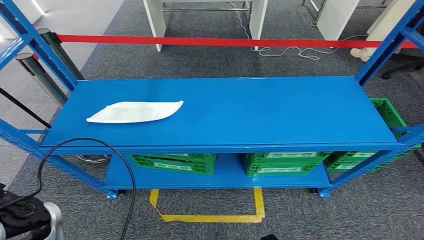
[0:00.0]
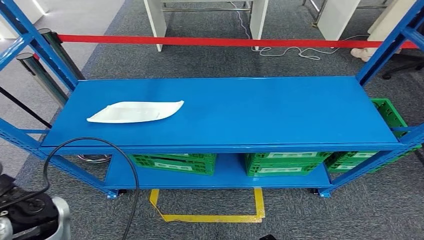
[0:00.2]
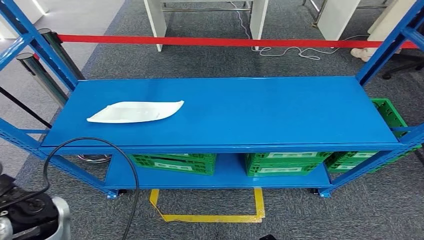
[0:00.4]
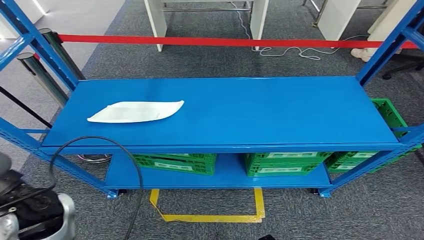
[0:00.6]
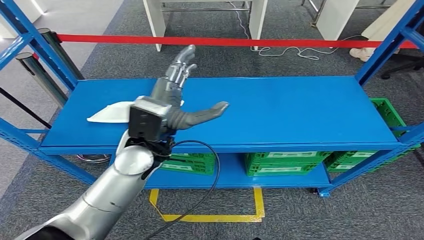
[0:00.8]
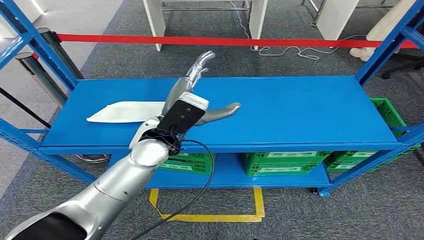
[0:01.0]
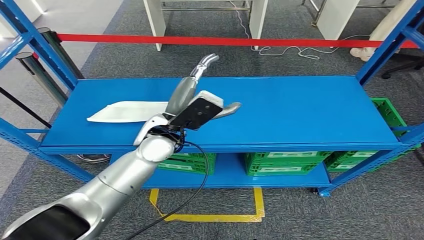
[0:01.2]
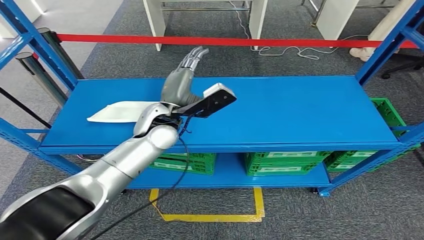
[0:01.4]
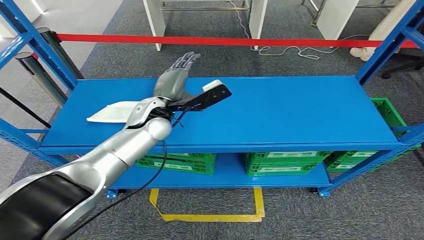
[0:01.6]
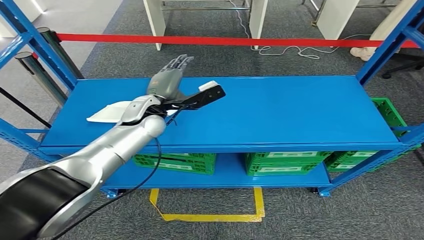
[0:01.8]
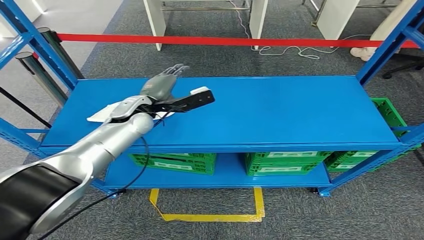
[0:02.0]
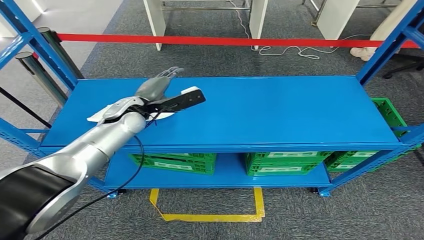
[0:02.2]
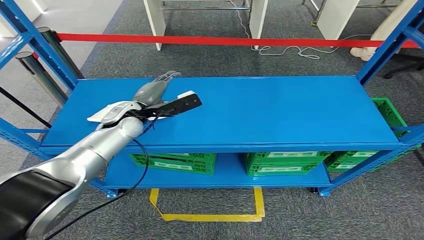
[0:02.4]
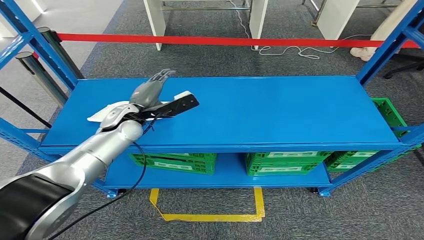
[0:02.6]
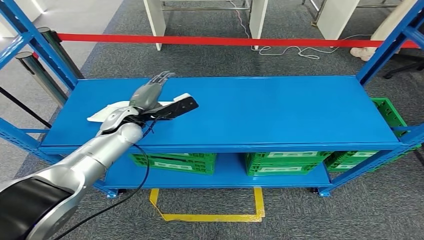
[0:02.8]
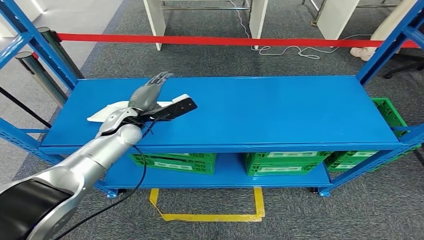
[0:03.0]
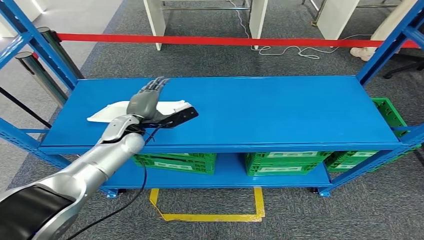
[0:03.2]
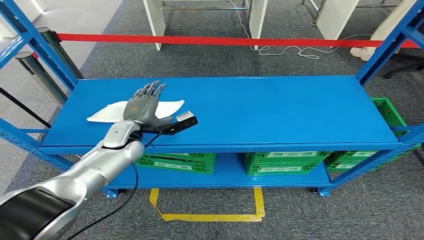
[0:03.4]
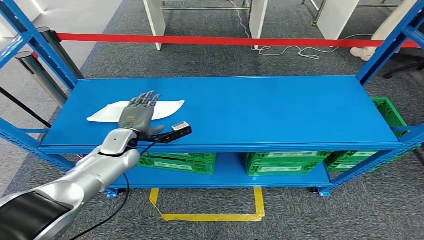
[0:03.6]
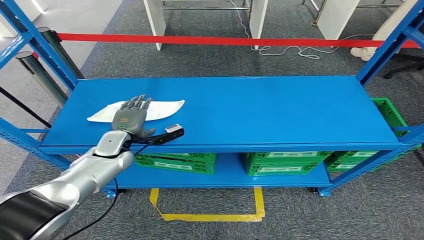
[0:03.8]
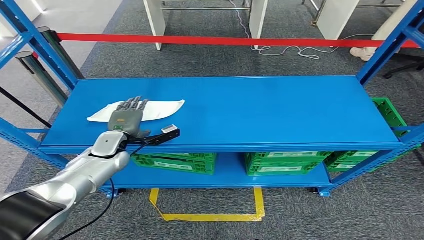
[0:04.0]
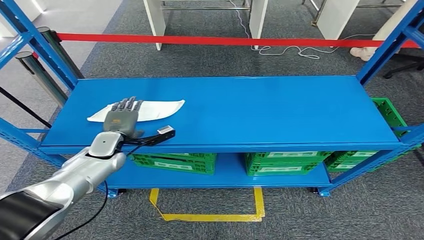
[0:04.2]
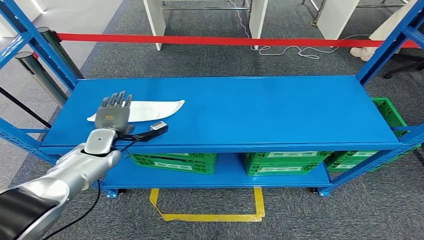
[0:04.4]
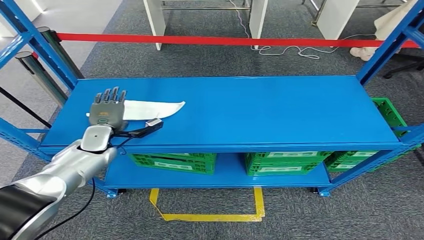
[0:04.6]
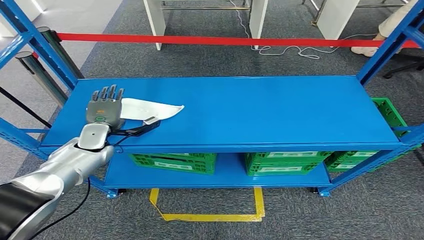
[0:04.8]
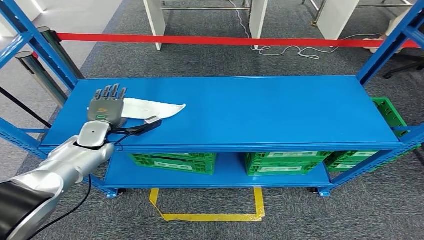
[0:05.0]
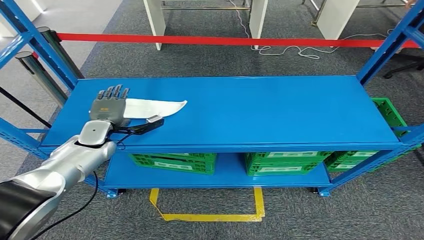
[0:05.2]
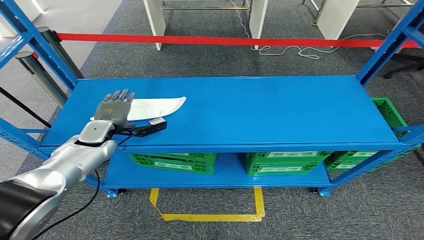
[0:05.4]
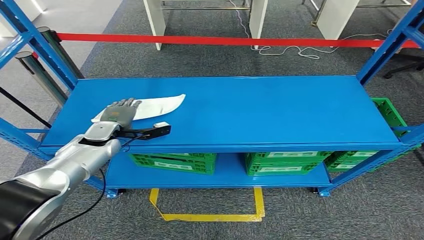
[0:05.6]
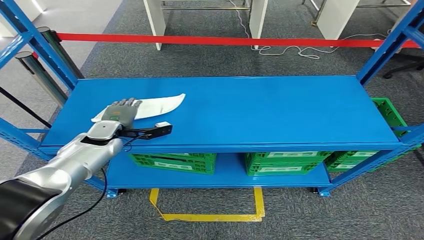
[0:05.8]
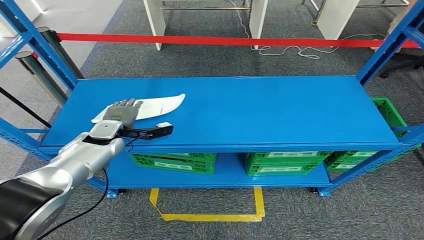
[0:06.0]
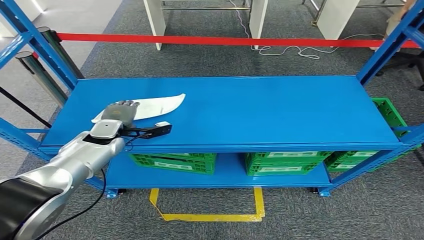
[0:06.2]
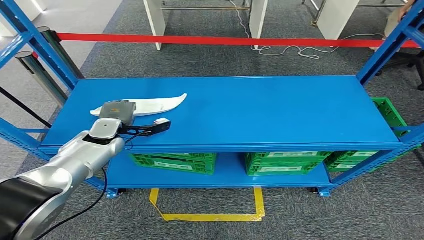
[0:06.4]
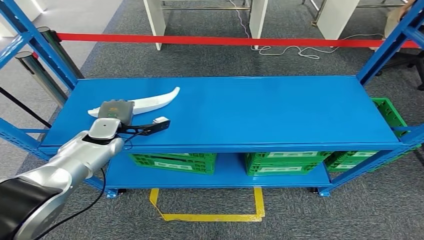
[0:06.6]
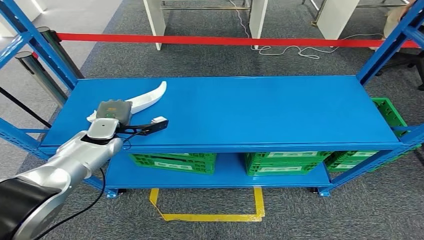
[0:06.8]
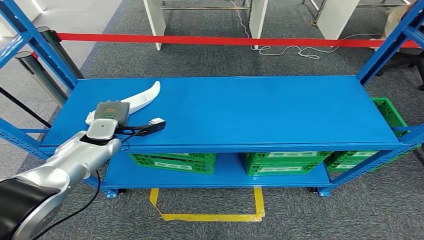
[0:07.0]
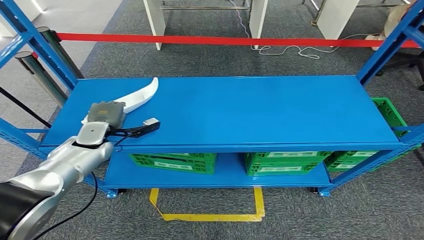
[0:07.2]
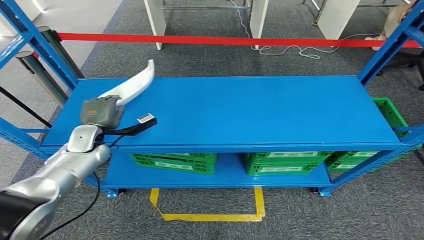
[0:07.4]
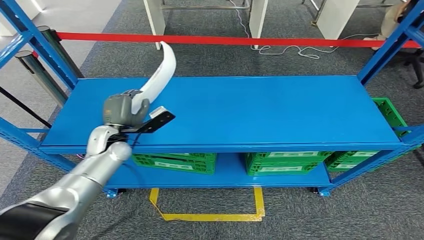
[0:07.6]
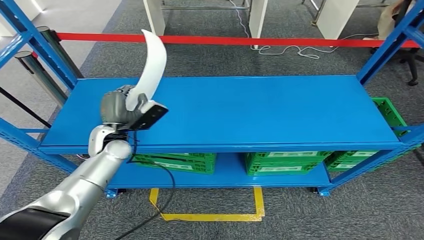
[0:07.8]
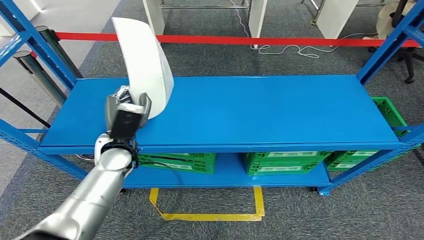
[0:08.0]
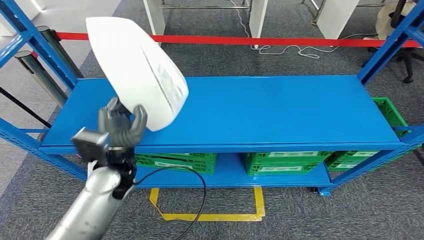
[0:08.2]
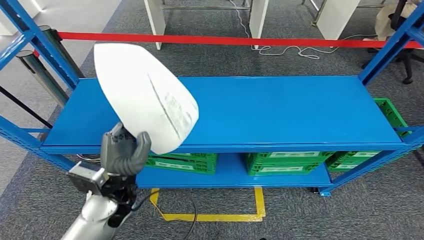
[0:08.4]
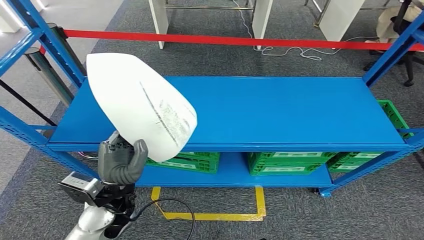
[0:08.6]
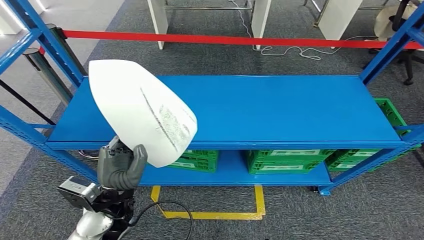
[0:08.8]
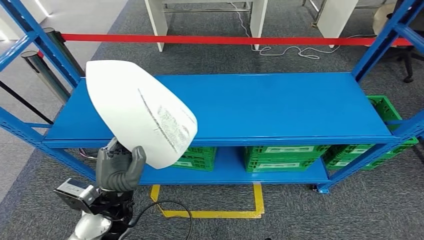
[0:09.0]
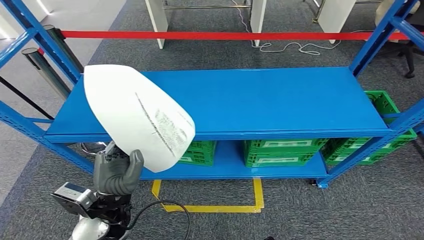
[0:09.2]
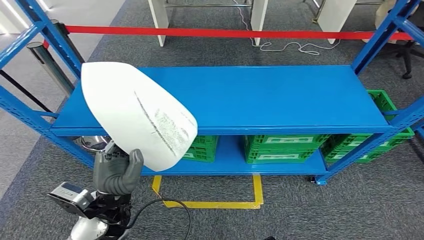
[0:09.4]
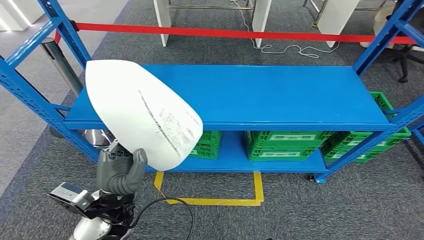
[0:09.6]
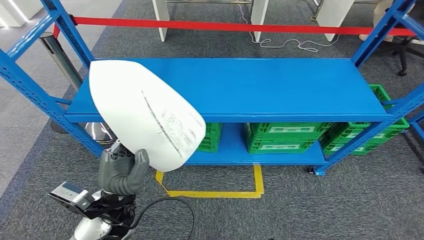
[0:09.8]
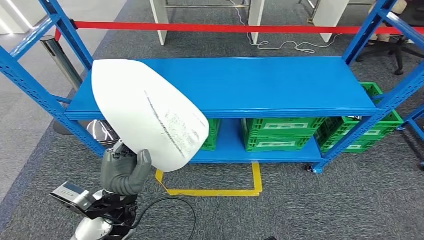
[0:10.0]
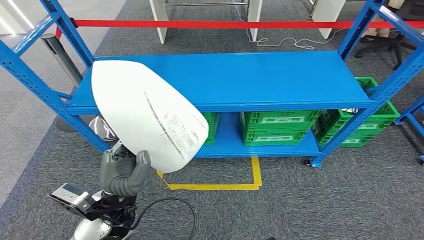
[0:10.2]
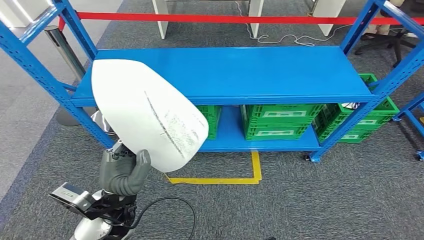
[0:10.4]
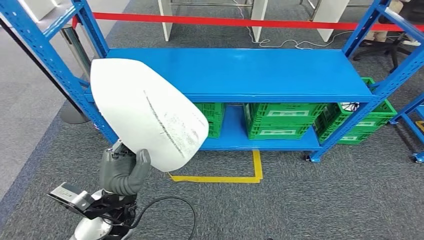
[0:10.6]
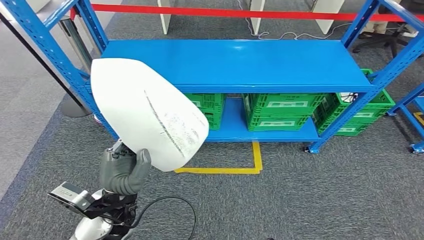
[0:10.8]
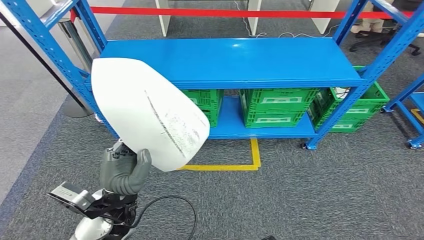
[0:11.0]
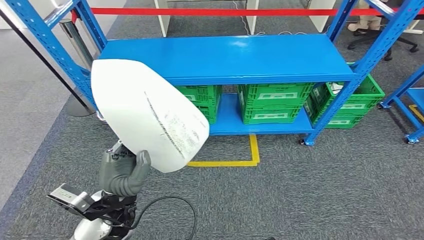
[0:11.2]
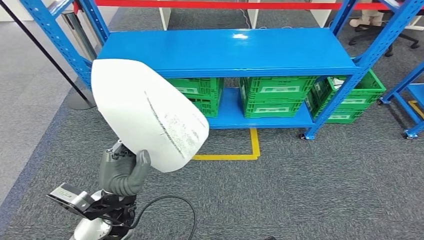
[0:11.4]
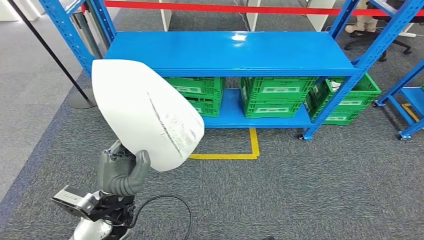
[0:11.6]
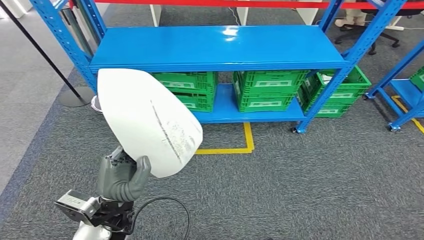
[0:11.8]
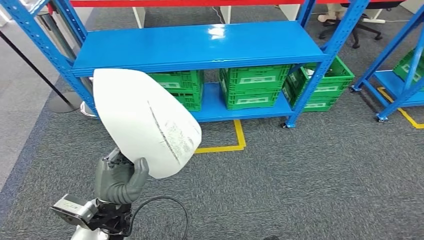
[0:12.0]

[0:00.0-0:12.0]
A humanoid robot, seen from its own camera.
Step, 0:00.0 to 0:09.2: Take small components from the rack.
0:01.6 to 0:03.0: The left hand travels to the left and downward by some 10 cm.
0:03.0 to 0:04.4: The left hand is displaced downward and to the left by approximately 10 cm.
0:04.4 to 0:06.0: The hands make only small movements.

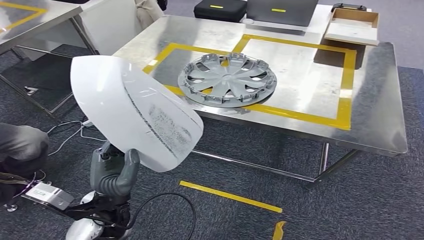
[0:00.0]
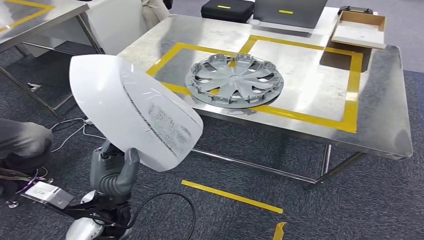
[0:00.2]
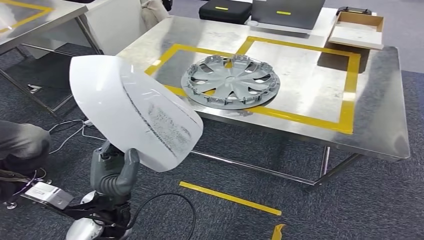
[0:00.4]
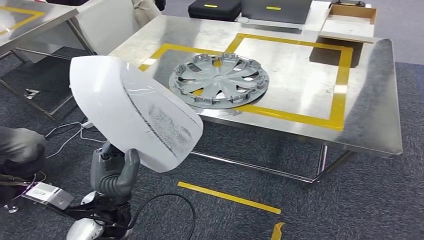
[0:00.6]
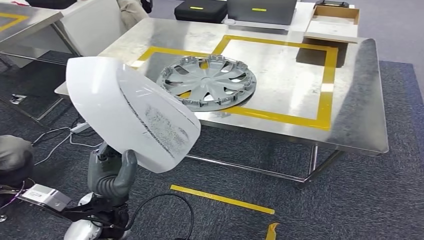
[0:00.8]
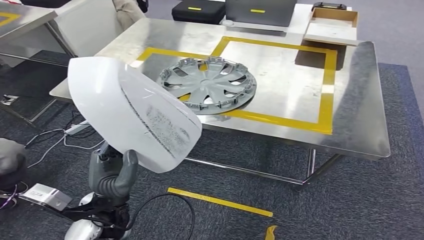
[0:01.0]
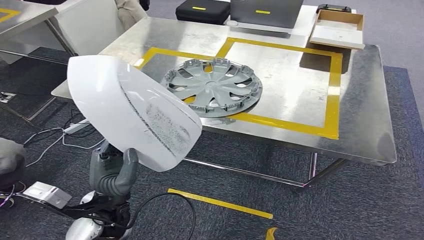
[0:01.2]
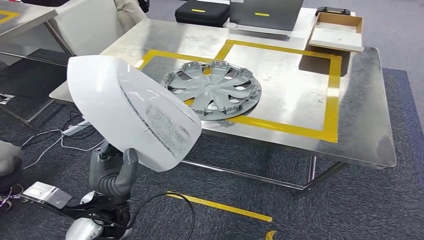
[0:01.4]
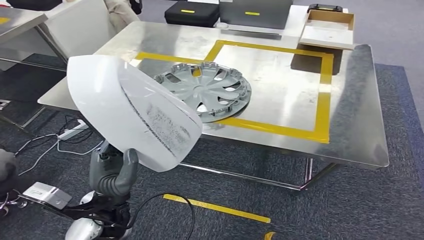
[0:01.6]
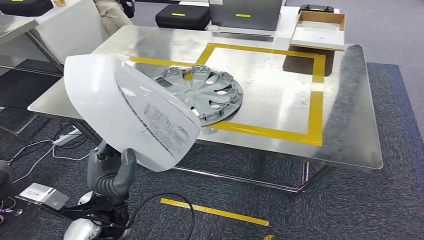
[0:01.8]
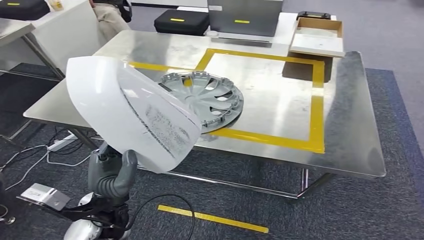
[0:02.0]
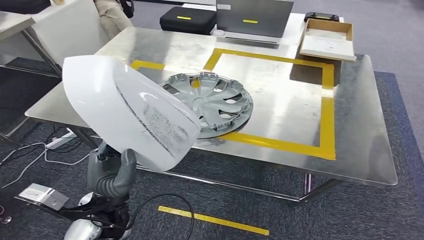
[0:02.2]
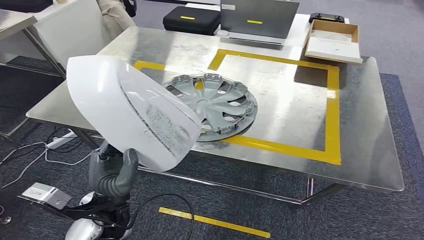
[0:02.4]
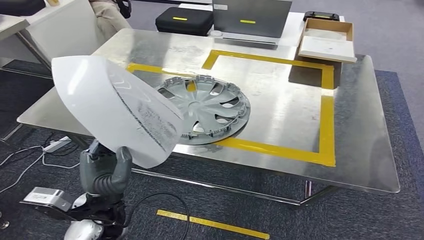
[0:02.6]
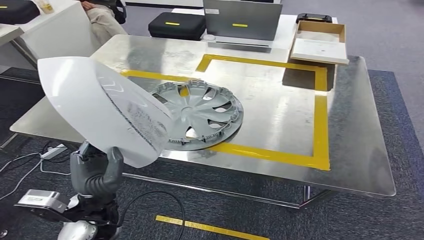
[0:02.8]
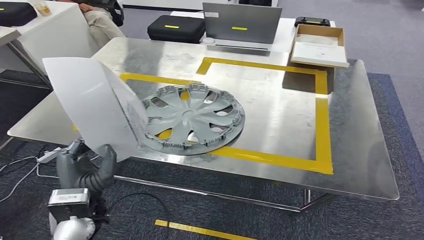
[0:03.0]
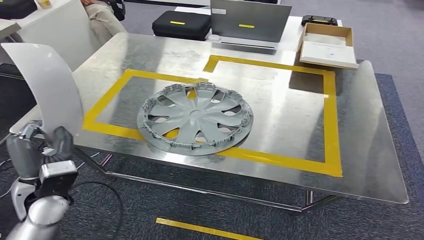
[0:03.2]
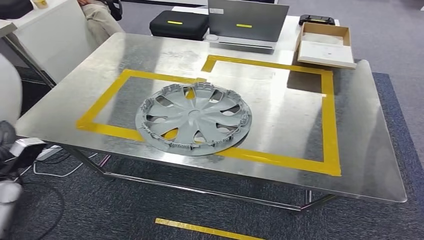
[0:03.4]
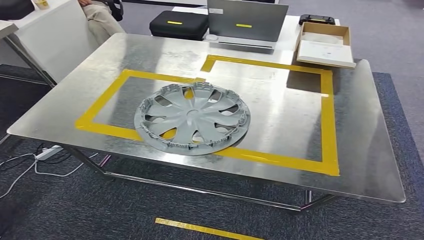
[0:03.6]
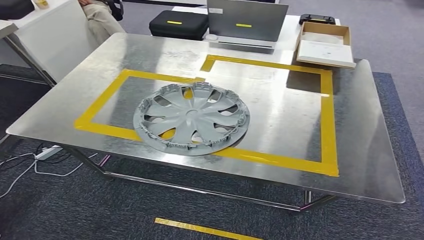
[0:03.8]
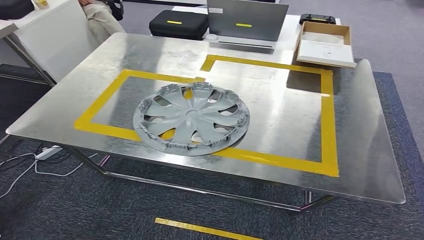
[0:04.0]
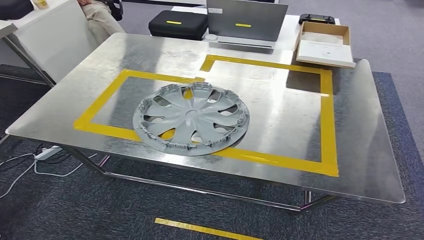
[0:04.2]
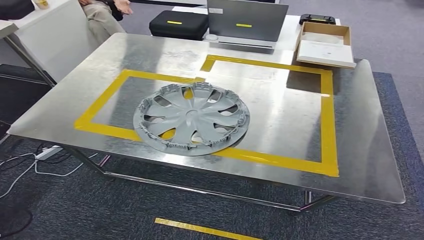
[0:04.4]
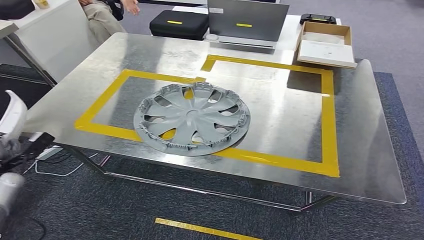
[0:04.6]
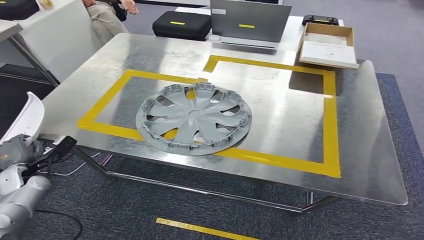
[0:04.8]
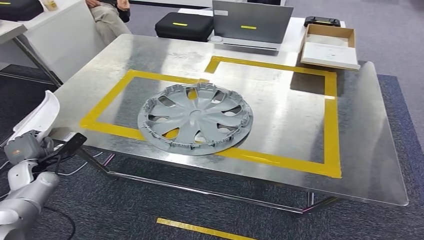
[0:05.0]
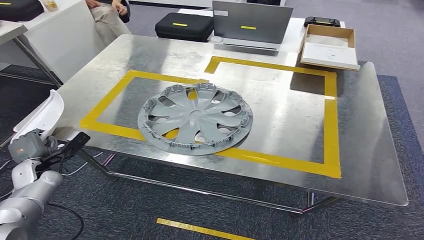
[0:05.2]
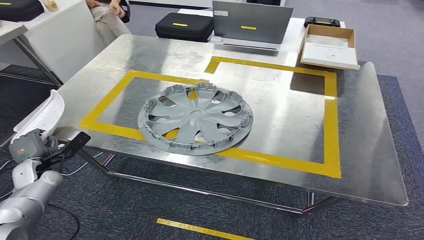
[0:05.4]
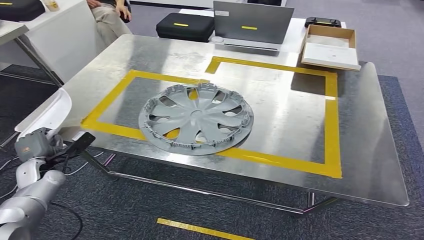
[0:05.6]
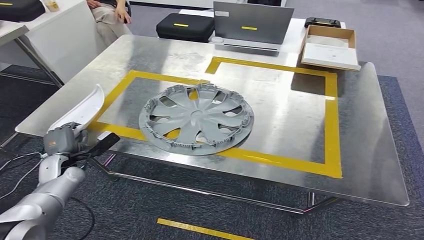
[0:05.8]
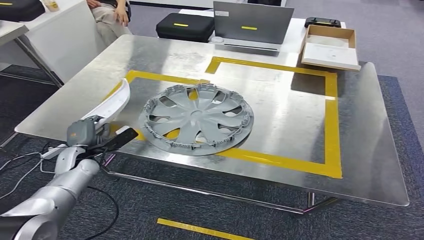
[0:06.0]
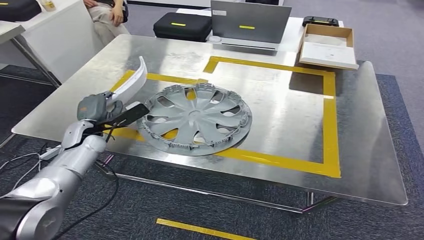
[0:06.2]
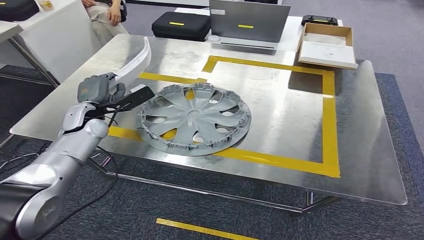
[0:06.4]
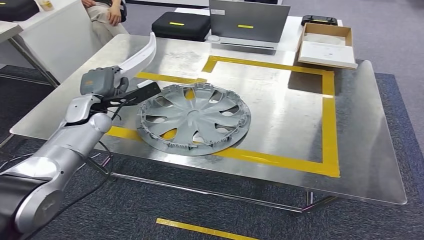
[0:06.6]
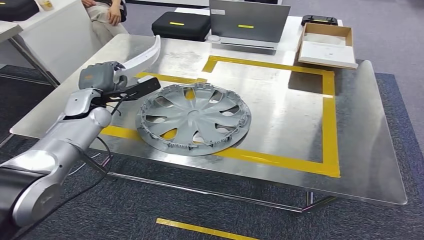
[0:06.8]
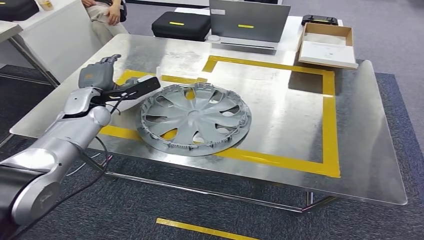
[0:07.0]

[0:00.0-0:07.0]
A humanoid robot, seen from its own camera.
Step, 0:00.0 to 0:02.0: Move the small parts to the workbench.
